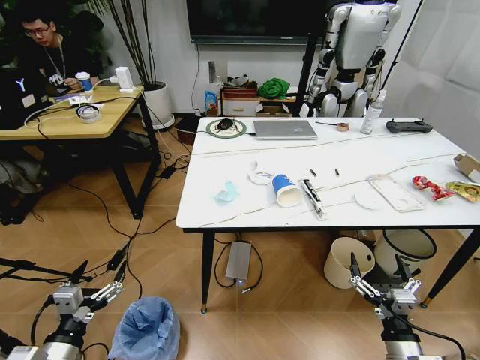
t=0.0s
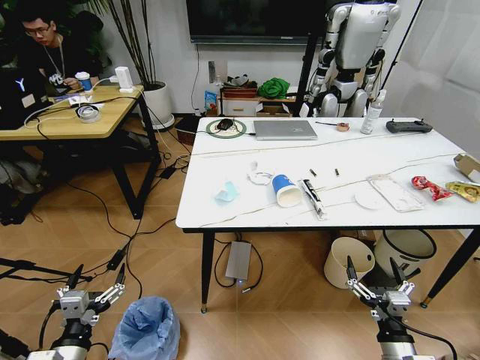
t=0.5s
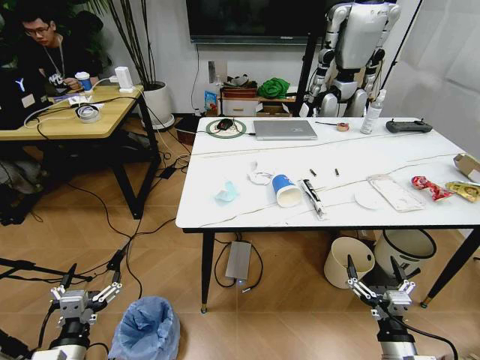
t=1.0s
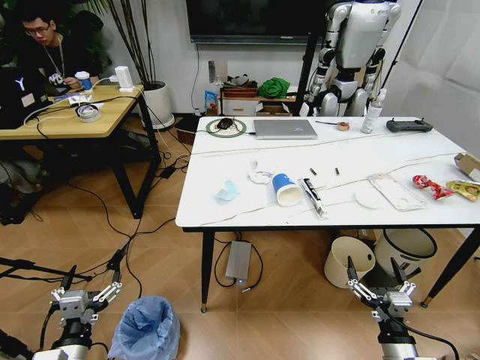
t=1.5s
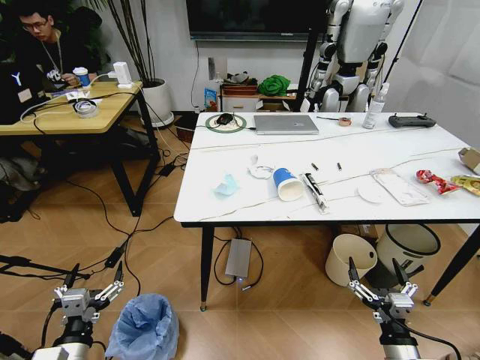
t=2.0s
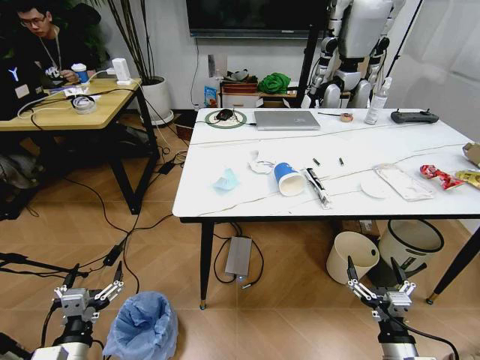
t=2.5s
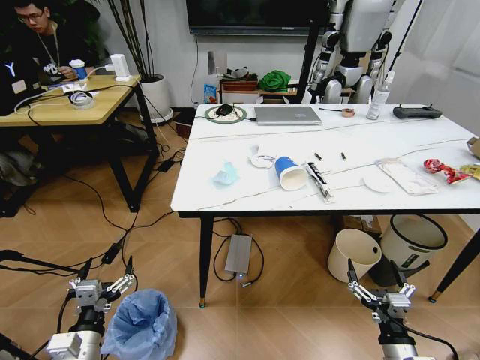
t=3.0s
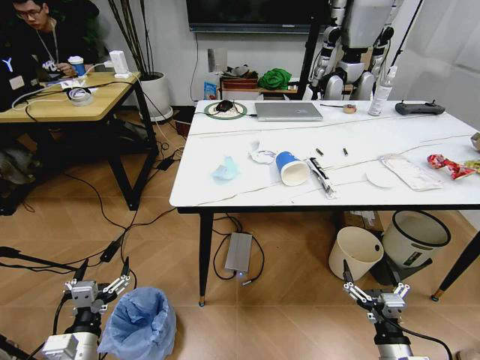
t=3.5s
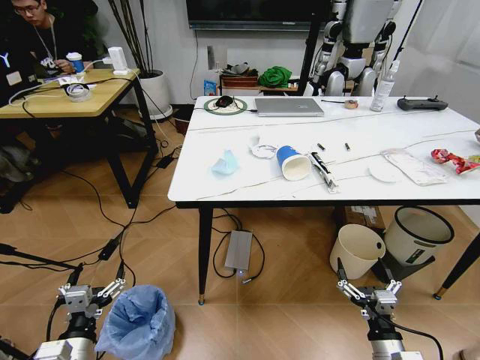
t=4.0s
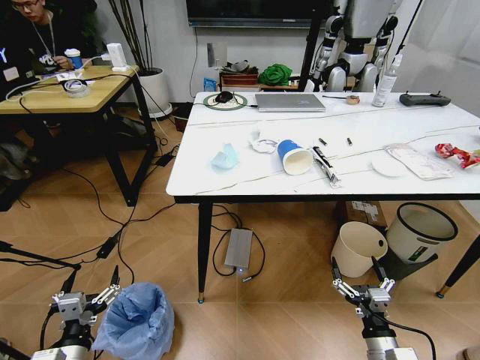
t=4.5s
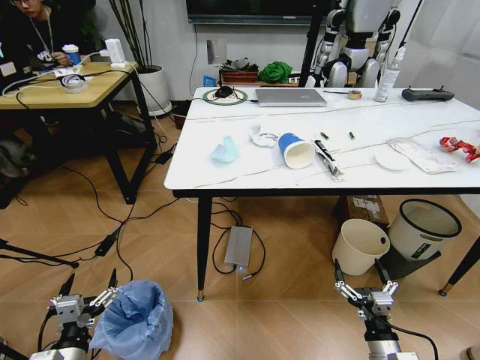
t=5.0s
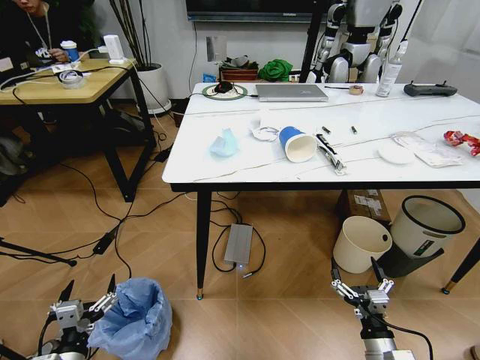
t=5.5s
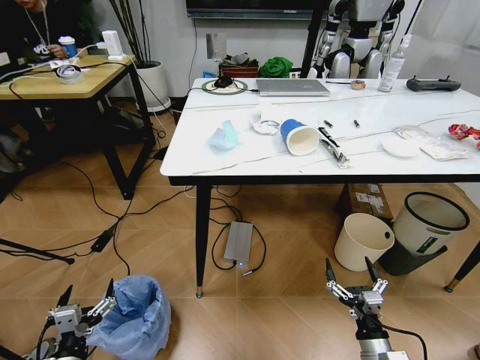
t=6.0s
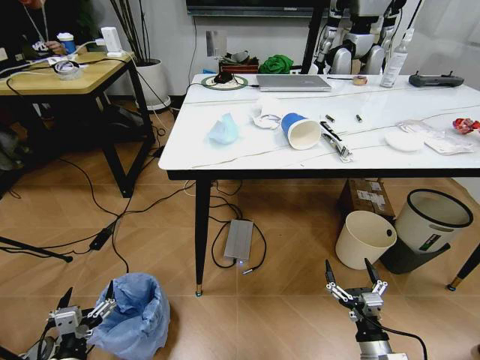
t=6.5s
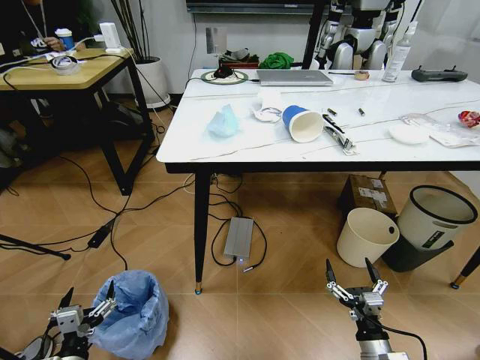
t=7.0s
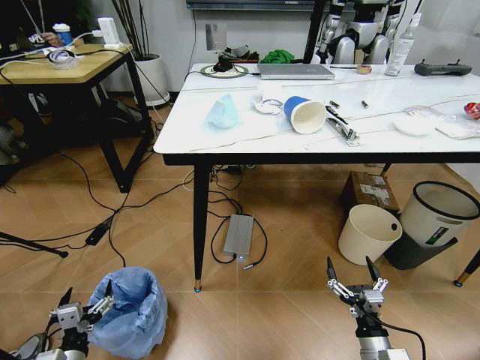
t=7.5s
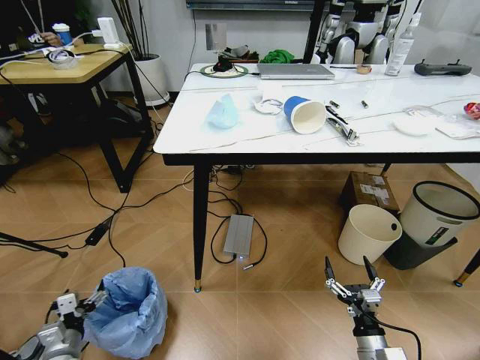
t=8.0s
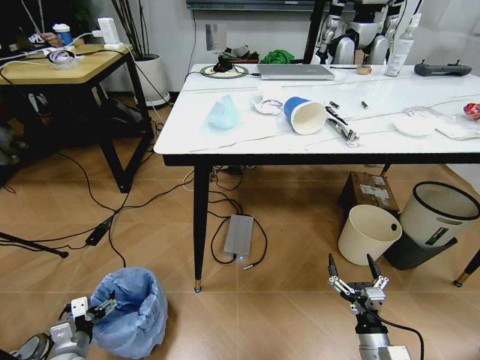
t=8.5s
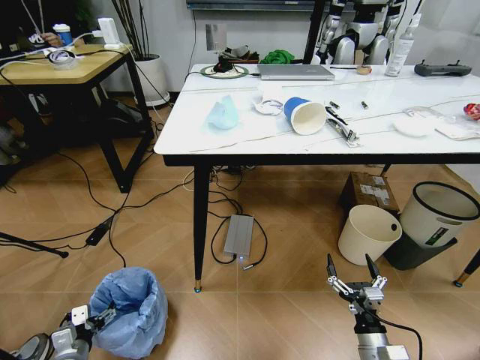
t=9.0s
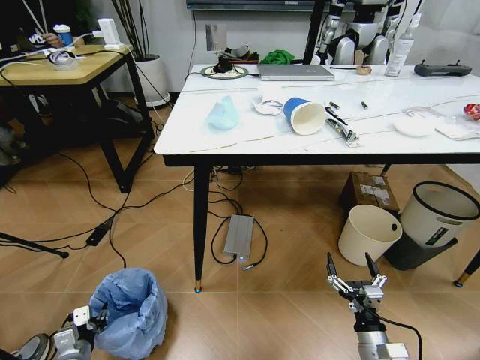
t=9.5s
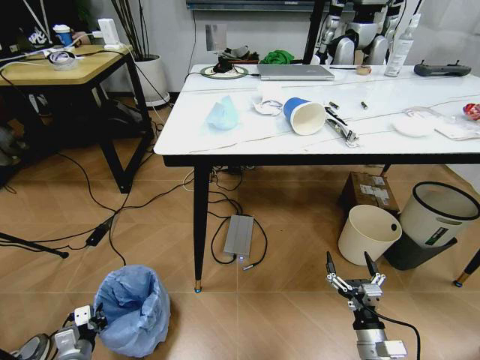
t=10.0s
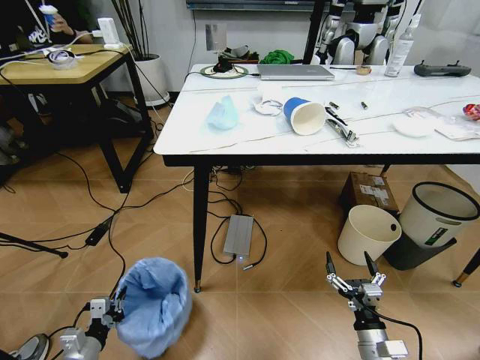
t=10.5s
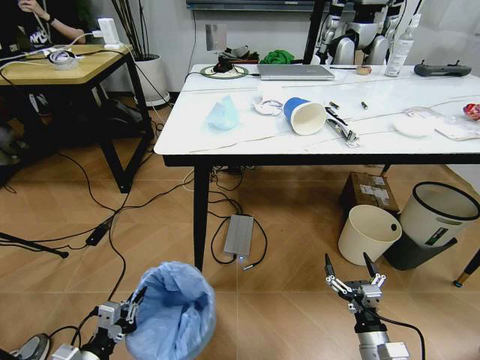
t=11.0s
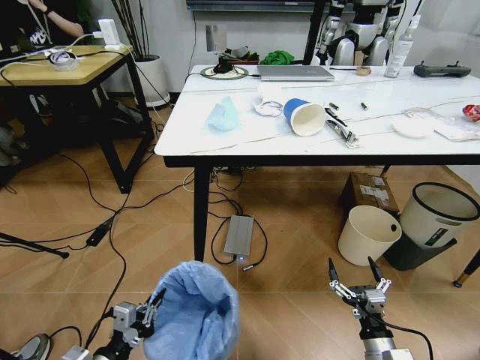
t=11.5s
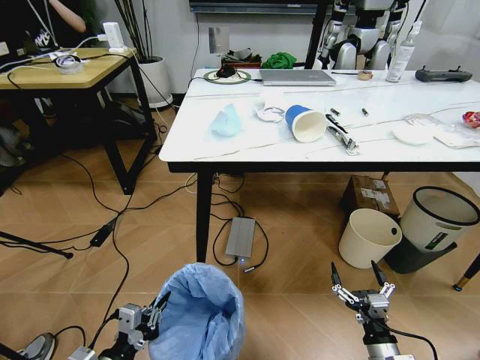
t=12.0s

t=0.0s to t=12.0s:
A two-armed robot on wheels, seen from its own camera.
Task of the whole recording: Pick up the trash bin and place the trash from the table into it.
t=6.0s to t=8.0s: The left gripper travels forward, to the left and downward by approximately 15 cm.
t=8.0s to t=10.0s: The left gripper closes its fingers.
t=10.0s to t=12.0s: The left gripper goes approximately 20 cm upward, to the right and backward.

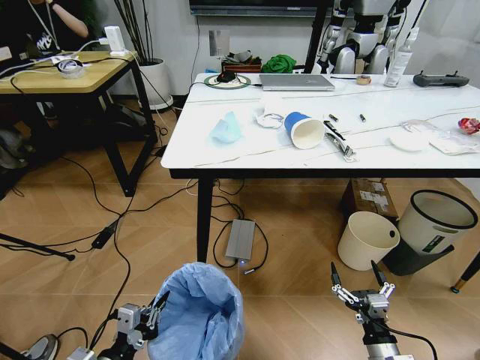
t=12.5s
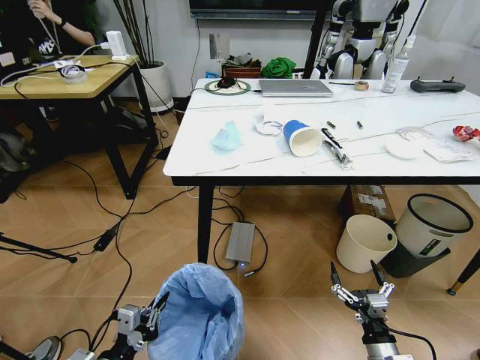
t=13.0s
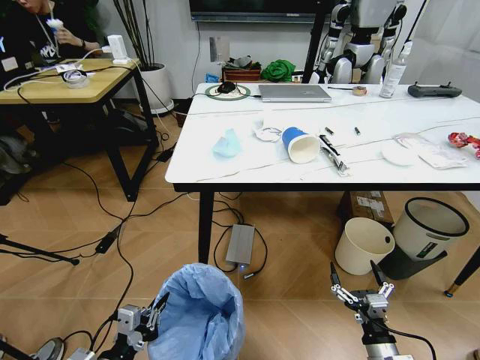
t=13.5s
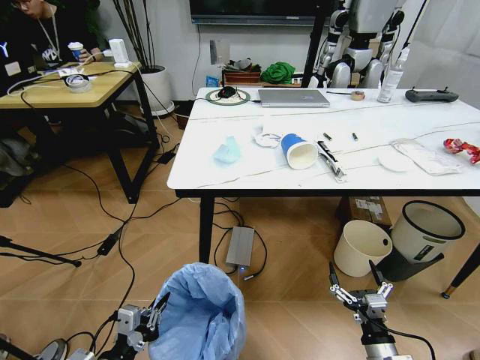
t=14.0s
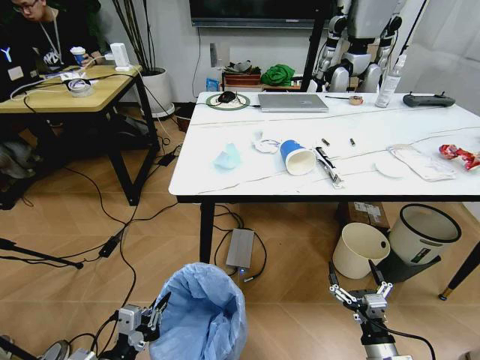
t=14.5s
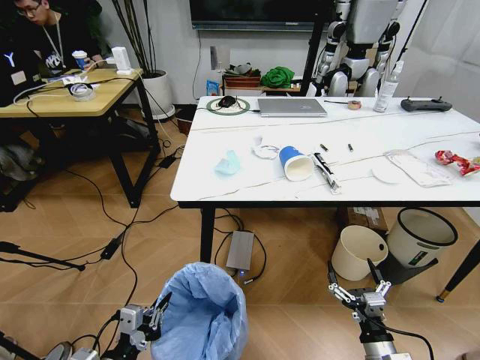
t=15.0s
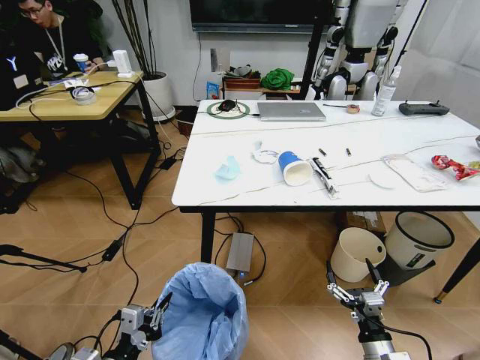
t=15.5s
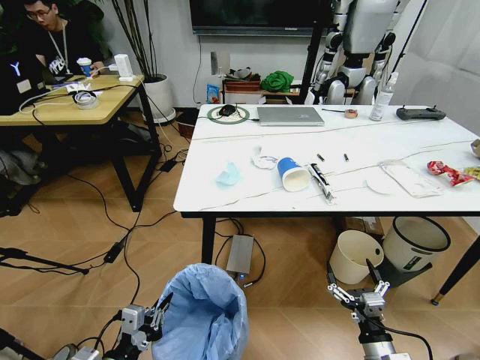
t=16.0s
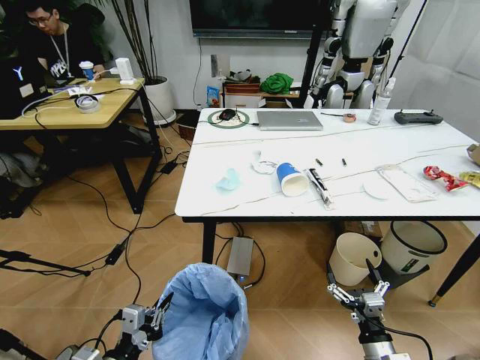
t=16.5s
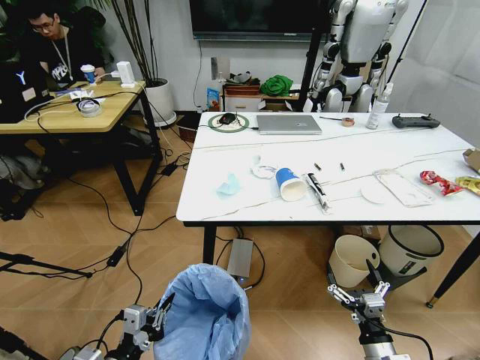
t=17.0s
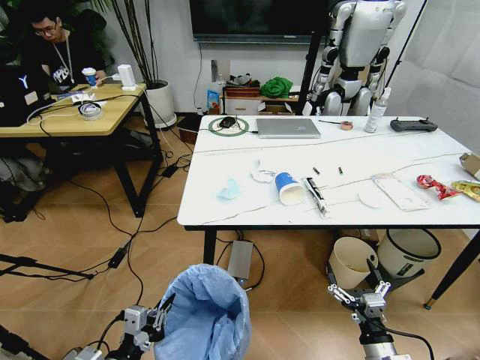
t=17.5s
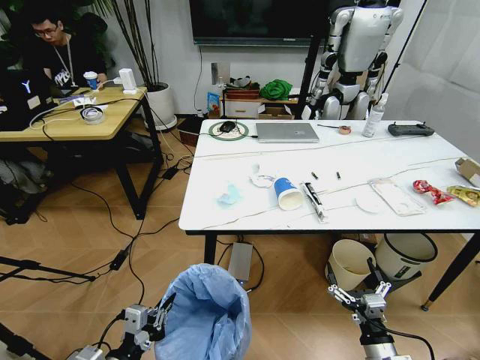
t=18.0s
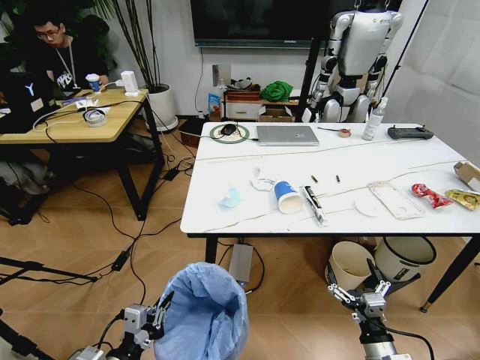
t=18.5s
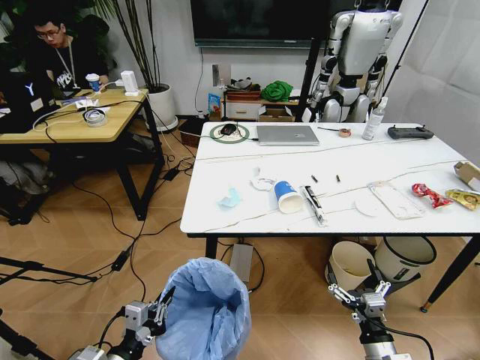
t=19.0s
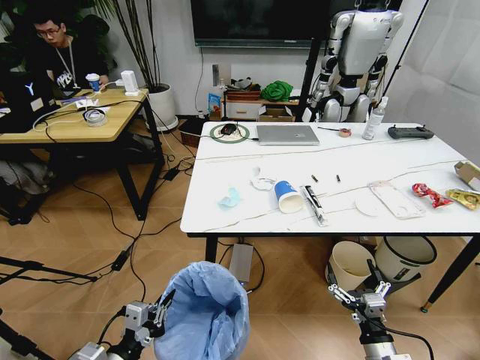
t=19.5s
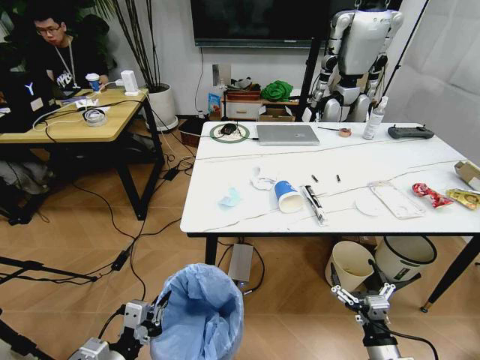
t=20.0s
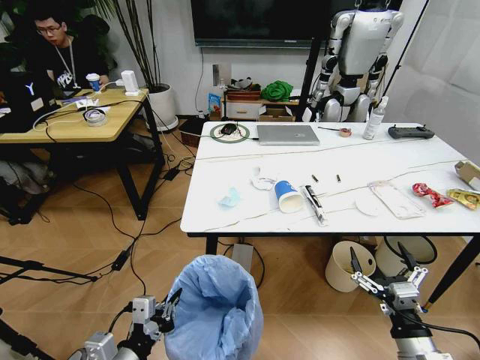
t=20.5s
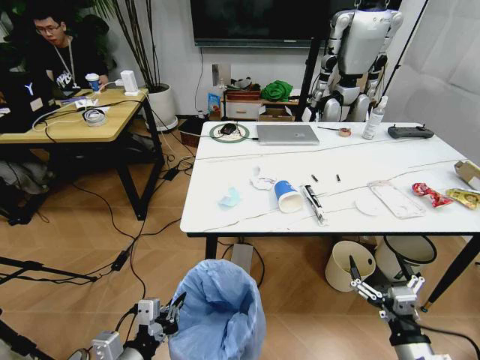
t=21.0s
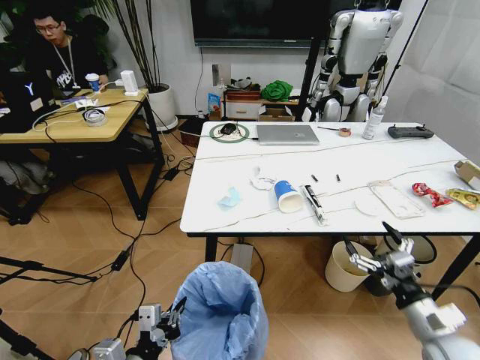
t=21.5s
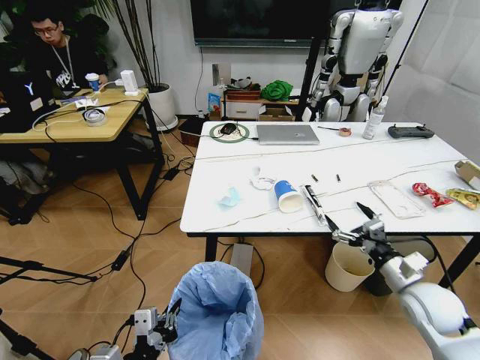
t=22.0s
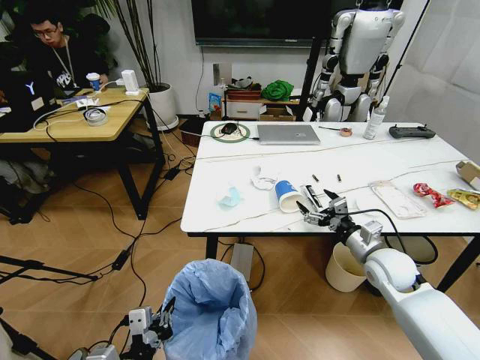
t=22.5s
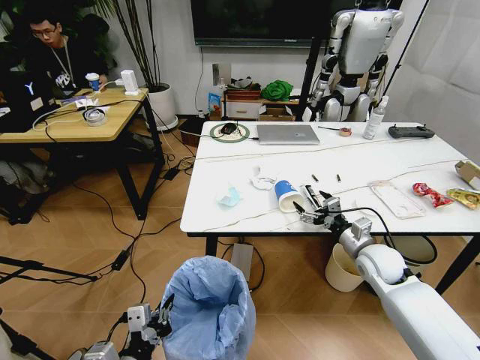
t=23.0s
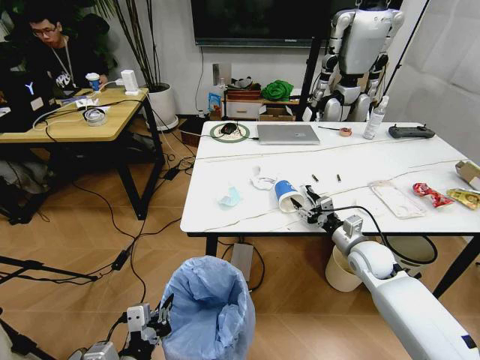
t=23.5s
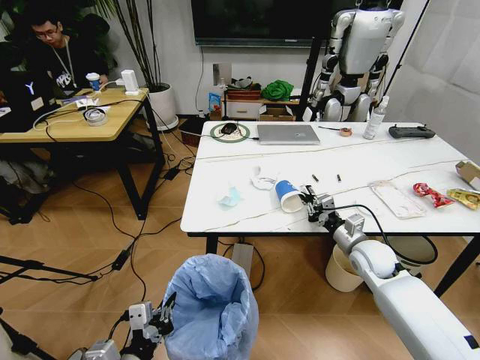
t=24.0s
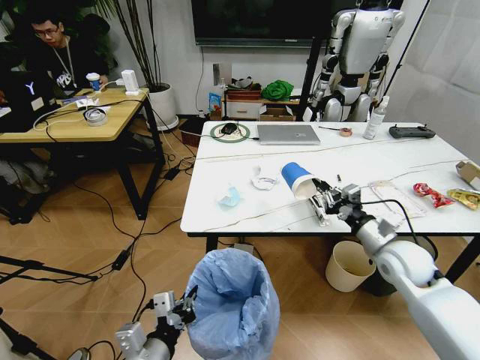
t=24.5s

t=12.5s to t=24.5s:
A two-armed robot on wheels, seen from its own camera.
Task of the whole recording: Pick up the trash bin and place the trash from the table into it.
t=18.5s to t=20.5s: The right gripper shifts approximately 5 cm upward. Meanwhile the left gripper ends up about 5 cm from where it was.
t=20.5s to t=22.5s: The right gripper goes some 25 cm forward.
t=22.5s to t=24.5s: The right gripper closes its fingers.

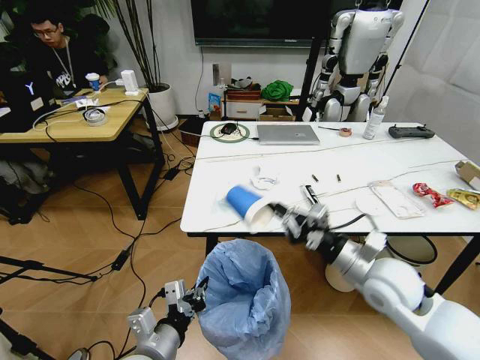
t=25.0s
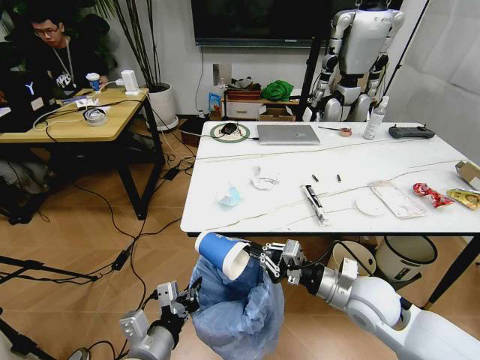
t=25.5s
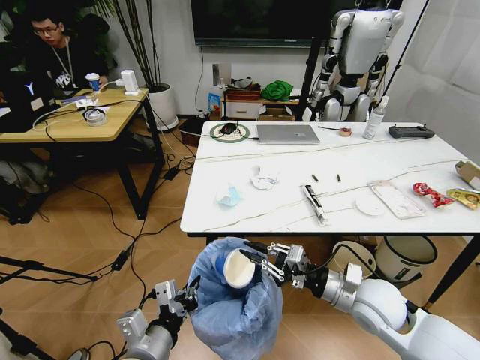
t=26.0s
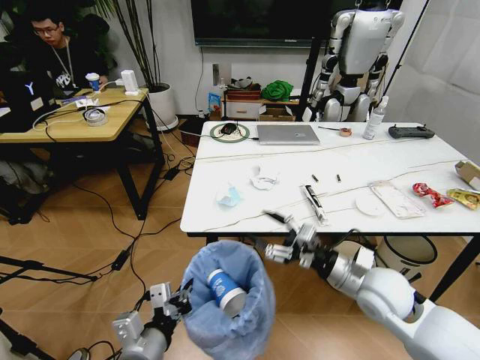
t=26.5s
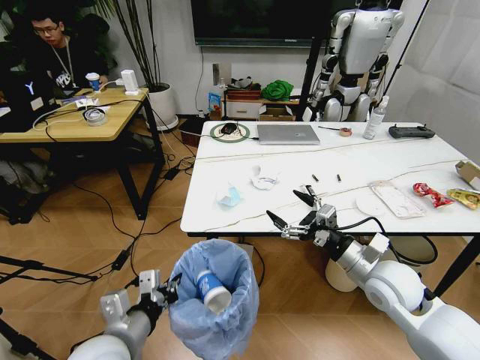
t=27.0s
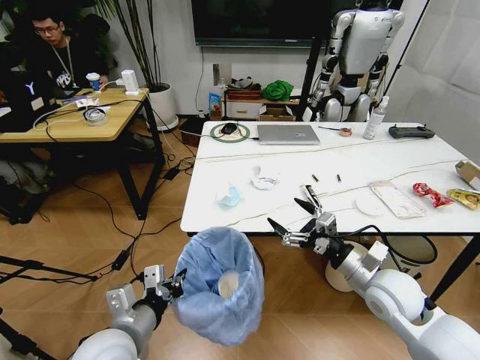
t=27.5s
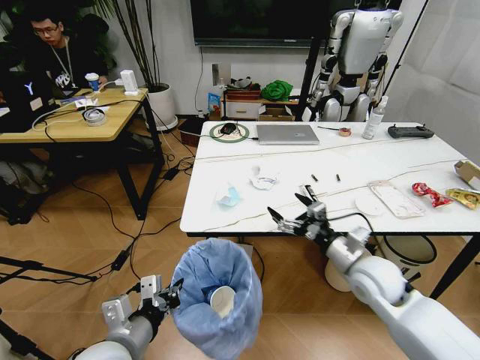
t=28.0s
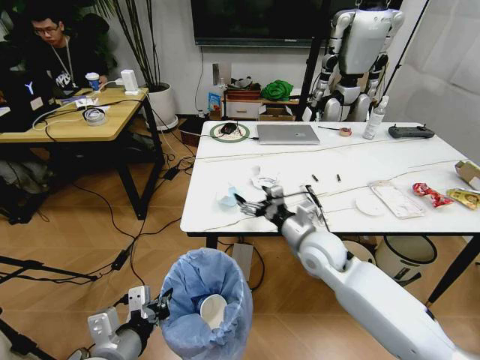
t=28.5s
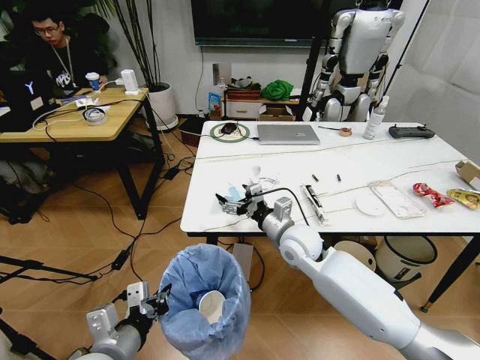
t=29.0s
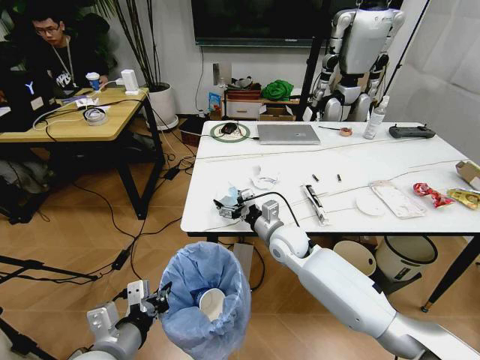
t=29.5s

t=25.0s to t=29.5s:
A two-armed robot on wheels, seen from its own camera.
Task of the whole recording: Pick up the trash bin and place the trash from the table into it.
t=25.0s to t=27.0s: The right gripper opens up; the left gripper changes place by approximately 5 cm.
t=27.0s to t=29.5s: The right gripper shifts some 20 cm to the left and forward.
